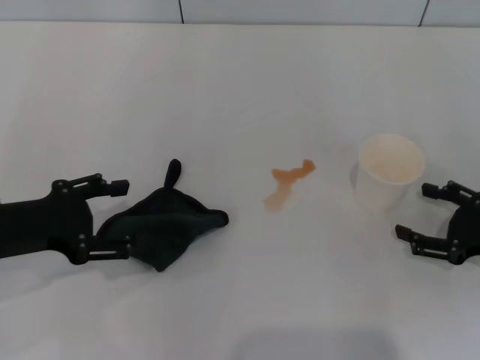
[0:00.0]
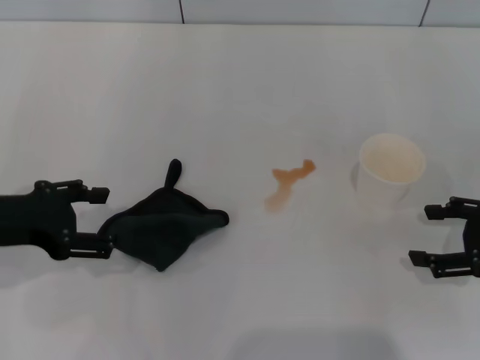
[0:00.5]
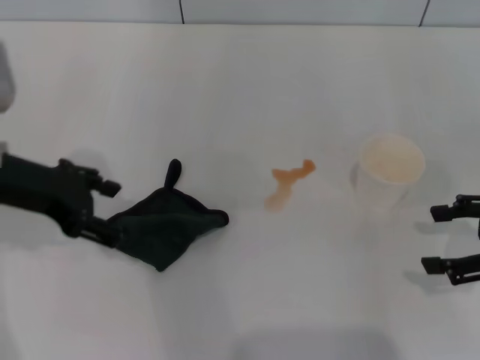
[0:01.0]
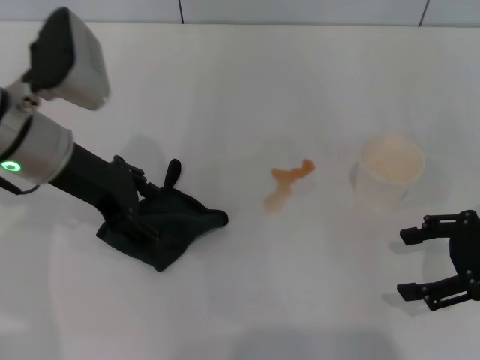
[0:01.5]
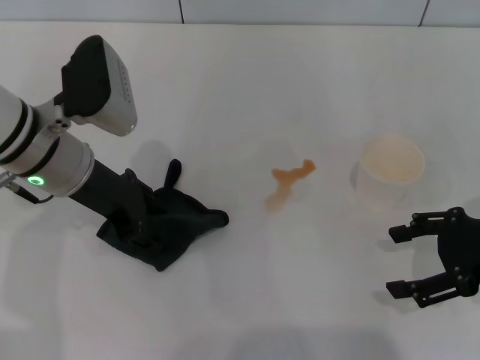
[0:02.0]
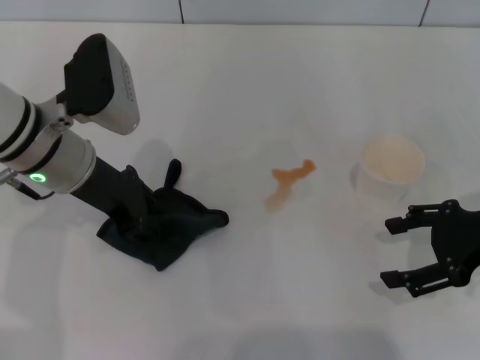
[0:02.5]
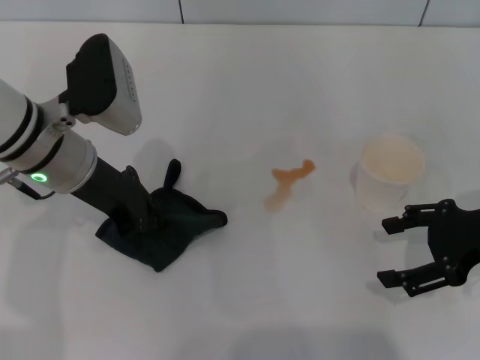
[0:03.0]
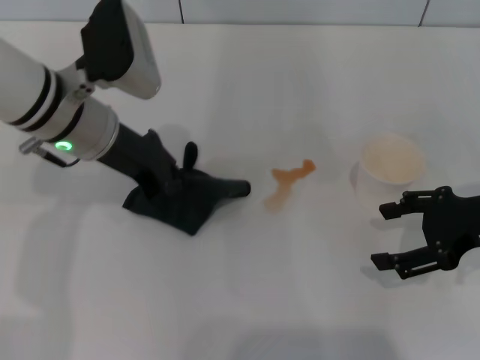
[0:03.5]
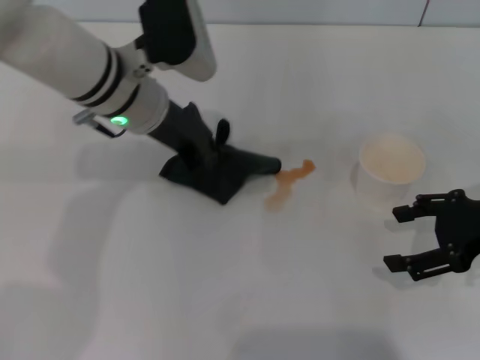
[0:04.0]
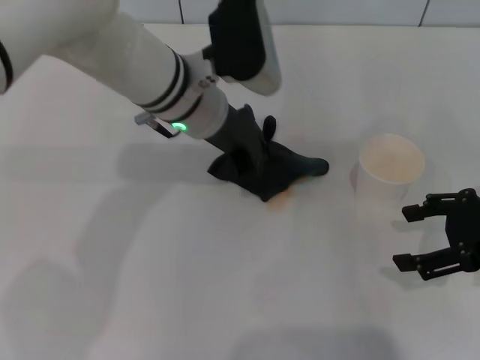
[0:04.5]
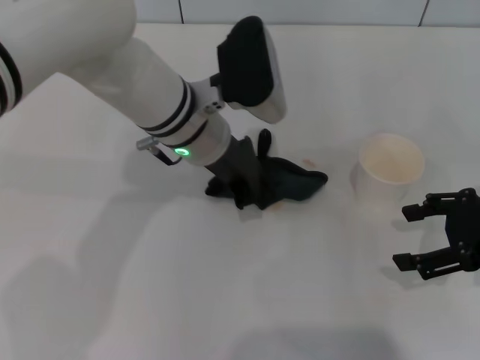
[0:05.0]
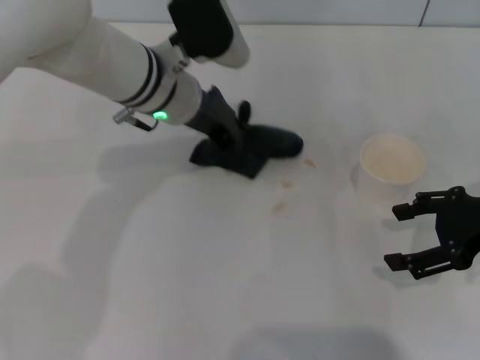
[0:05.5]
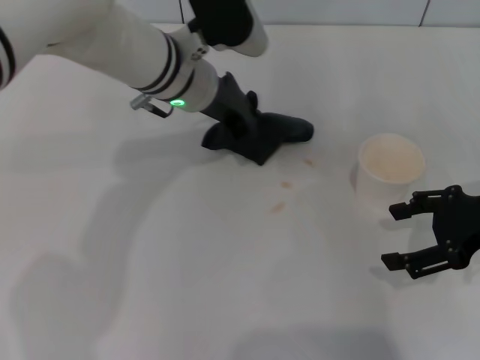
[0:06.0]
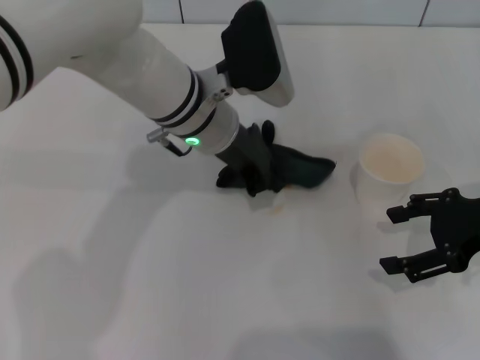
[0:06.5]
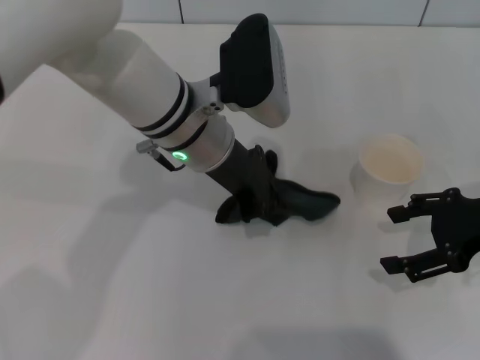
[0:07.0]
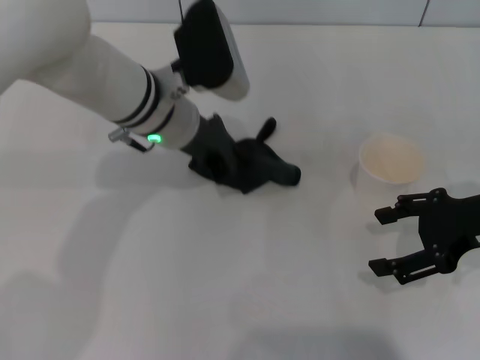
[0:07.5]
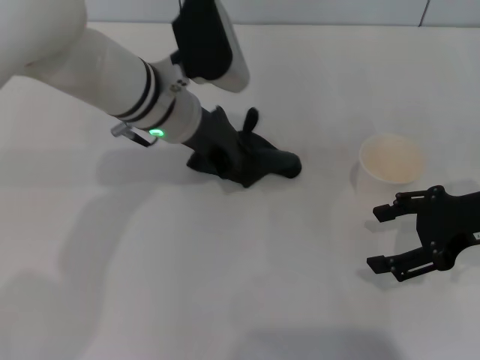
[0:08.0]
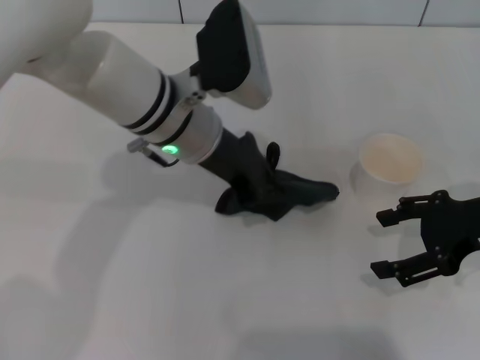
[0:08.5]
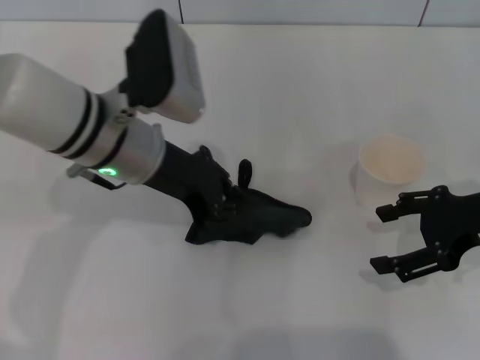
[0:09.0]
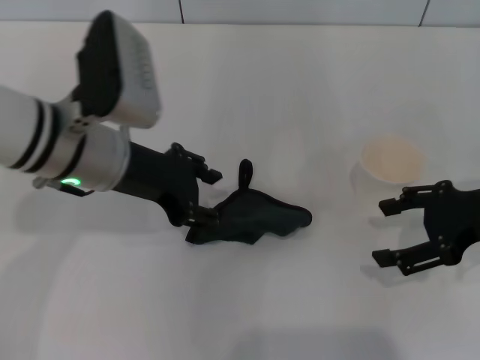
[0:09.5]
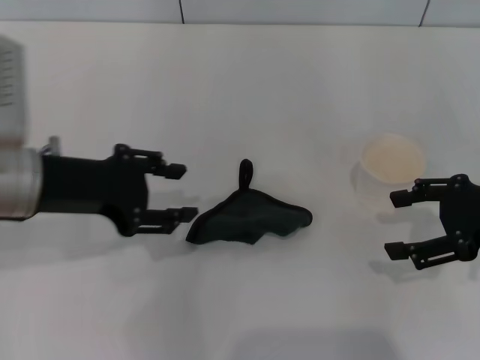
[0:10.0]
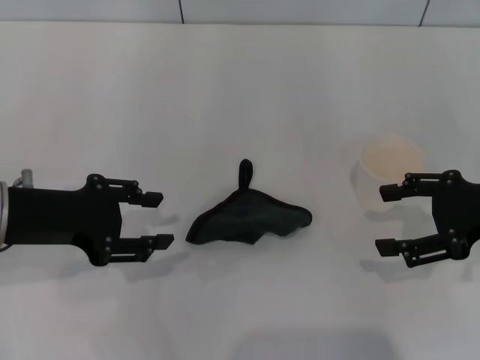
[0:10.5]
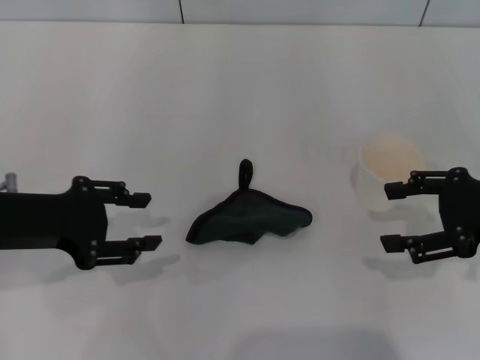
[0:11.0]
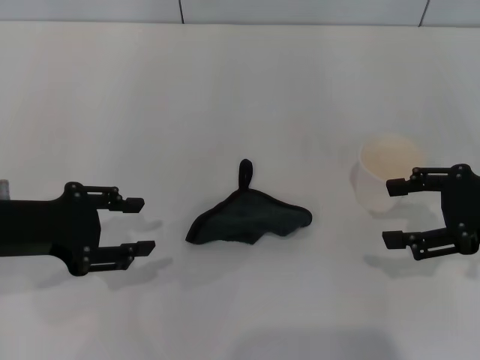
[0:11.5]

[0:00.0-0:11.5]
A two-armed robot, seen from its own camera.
Step, 0:00.5 to 0:03.0: Grasp the rag with the left gripper.
Step, 0:03.5 to 0:07.5: Wipe the stains off the table with the left gripper.
Step, 0:08.0 to 0:09.5: Place the rag on the table with the left gripper.
0:00.0 to 0:02.0: The right gripper shifts roughly 10 cm upward. Meanwhile the left gripper heads to the right and forward, covering roughly 15 cm.
0:02.0 to 0:04.0: The left gripper goes about 5 cm to the right, and closes.
0:04.0 to 0:06.0: The left gripper shifts by about 5 cm.
0:07.5 to 0:09.5: The left gripper goes about 10 cm to the left and backward, and opens its fingers.
0:09.5 to 0:11.5: The left gripper heads to the left and backward, covering about 15 cm.
